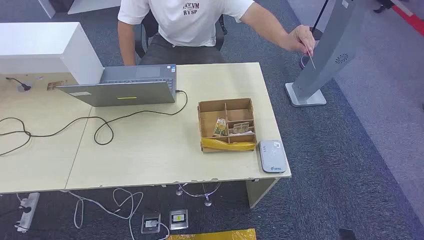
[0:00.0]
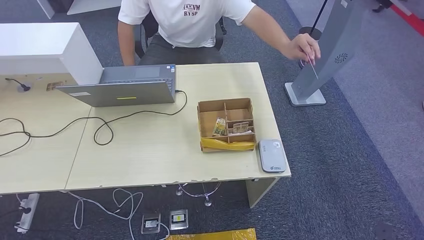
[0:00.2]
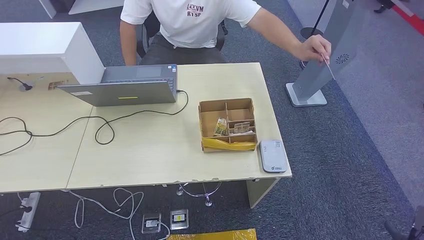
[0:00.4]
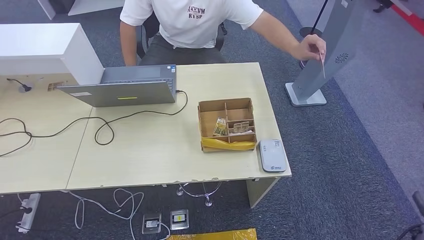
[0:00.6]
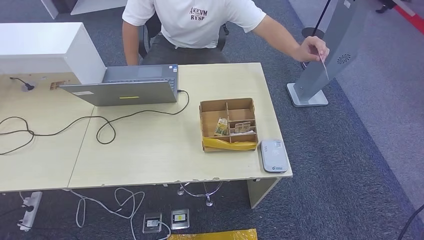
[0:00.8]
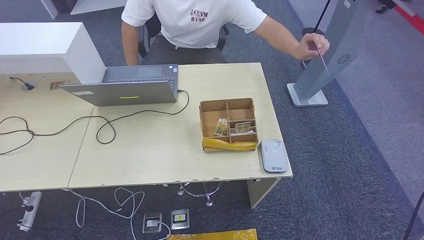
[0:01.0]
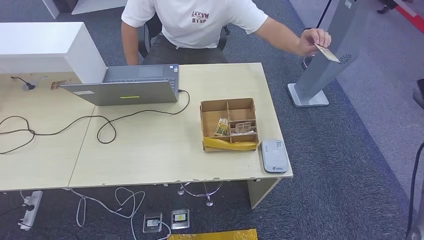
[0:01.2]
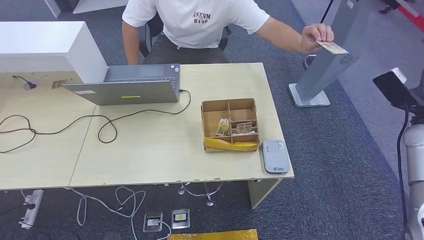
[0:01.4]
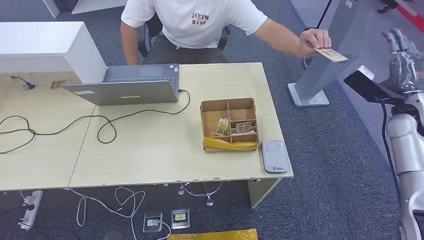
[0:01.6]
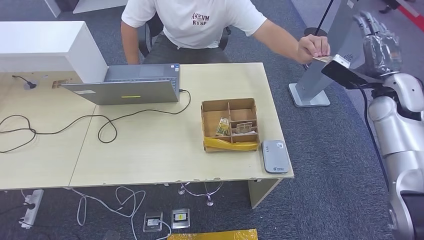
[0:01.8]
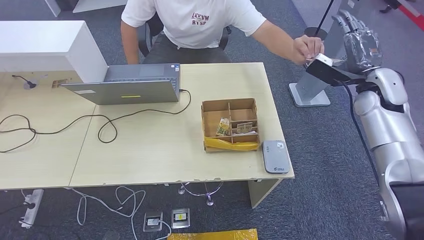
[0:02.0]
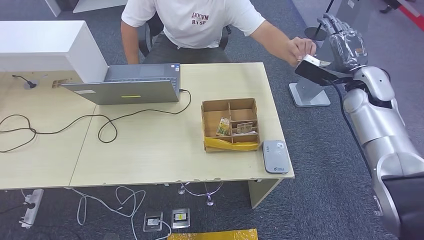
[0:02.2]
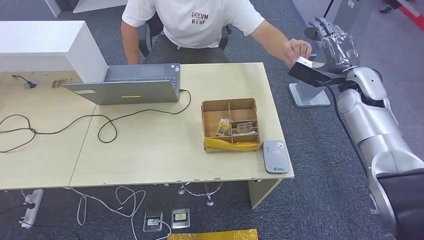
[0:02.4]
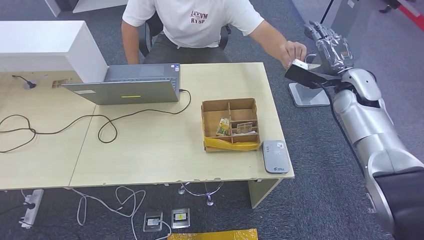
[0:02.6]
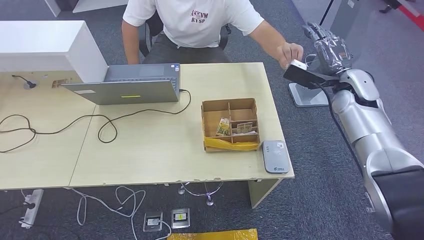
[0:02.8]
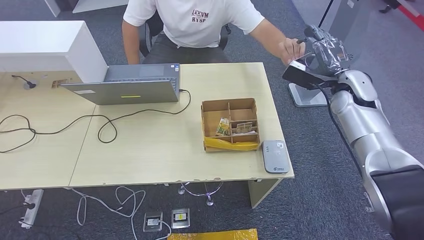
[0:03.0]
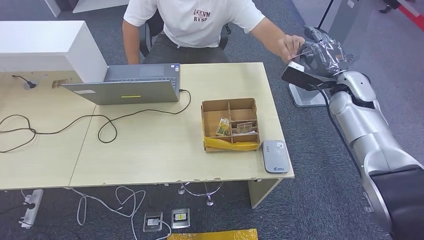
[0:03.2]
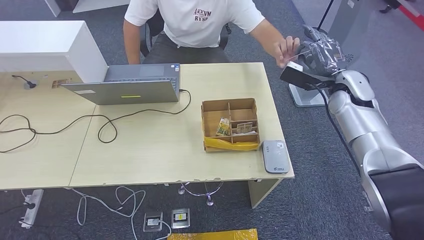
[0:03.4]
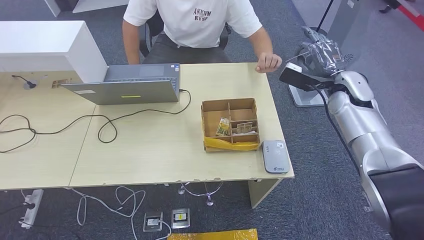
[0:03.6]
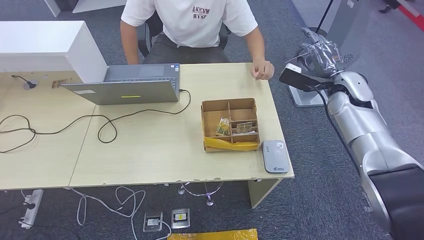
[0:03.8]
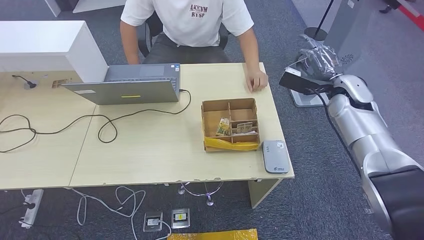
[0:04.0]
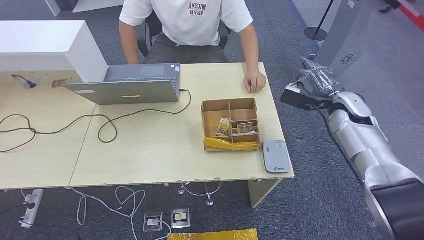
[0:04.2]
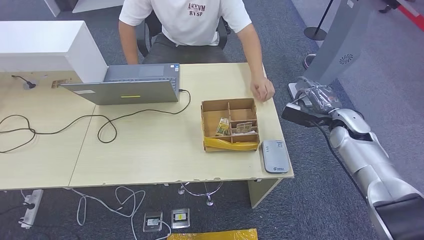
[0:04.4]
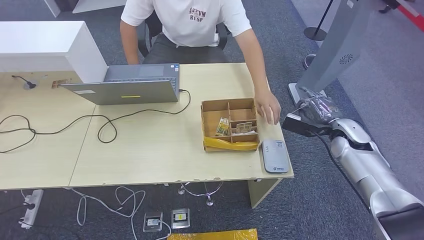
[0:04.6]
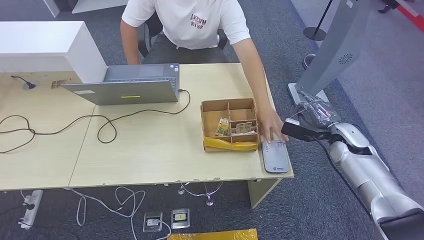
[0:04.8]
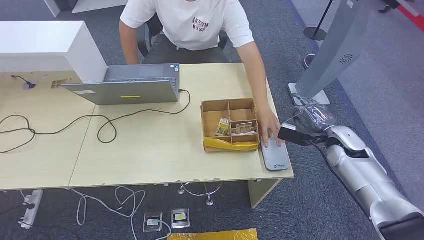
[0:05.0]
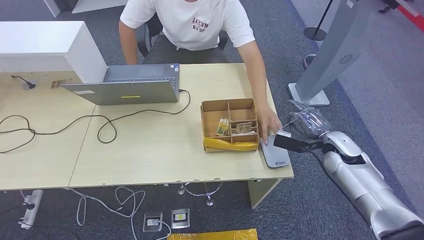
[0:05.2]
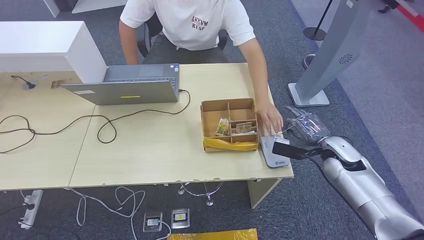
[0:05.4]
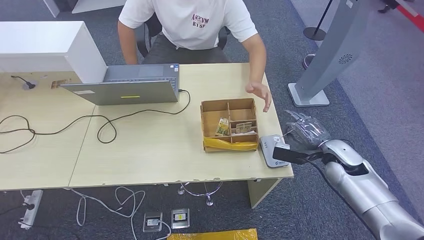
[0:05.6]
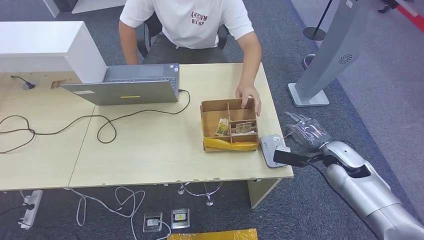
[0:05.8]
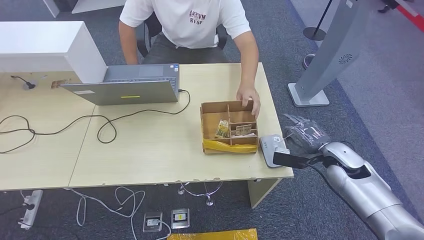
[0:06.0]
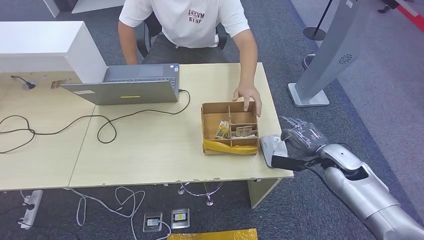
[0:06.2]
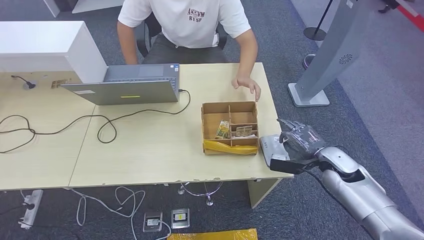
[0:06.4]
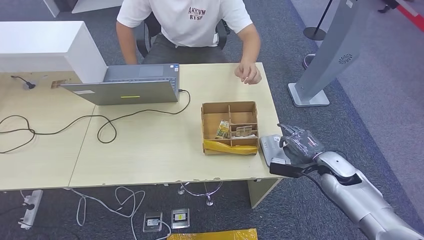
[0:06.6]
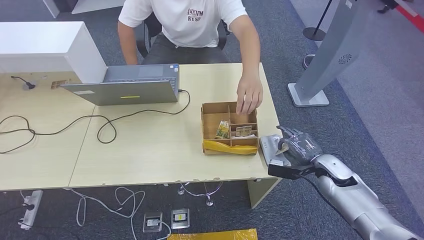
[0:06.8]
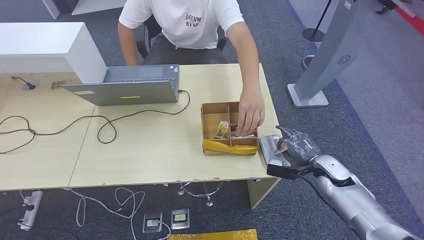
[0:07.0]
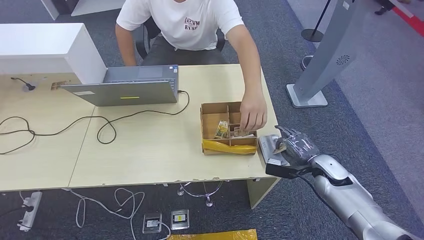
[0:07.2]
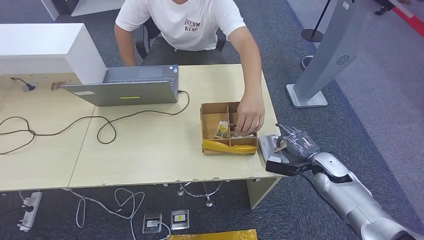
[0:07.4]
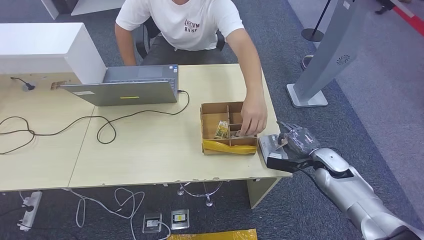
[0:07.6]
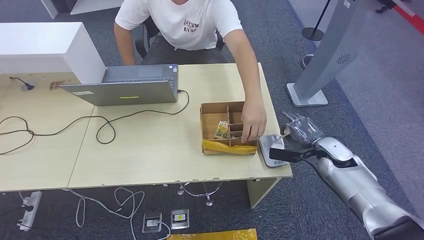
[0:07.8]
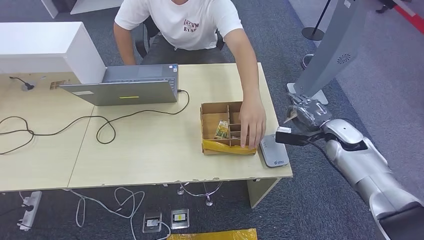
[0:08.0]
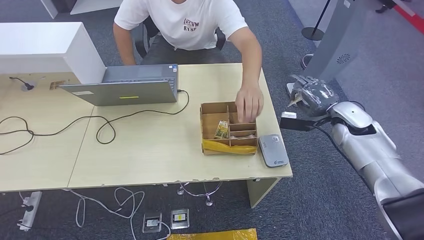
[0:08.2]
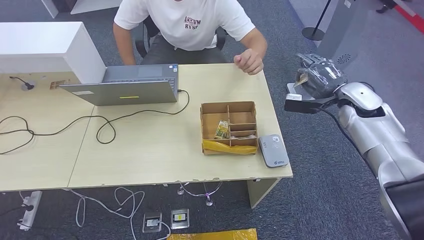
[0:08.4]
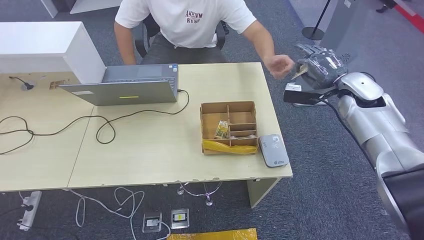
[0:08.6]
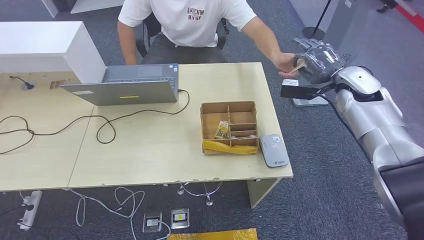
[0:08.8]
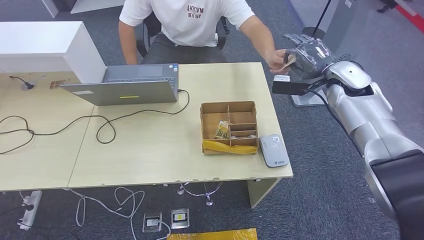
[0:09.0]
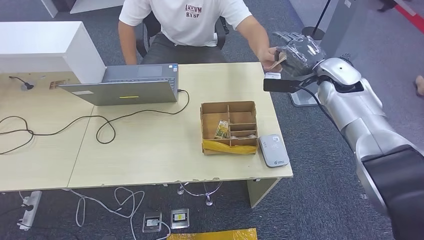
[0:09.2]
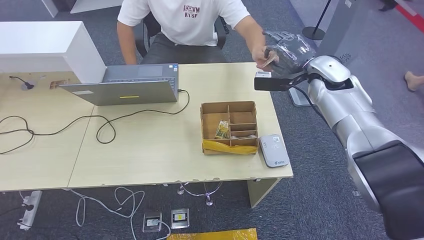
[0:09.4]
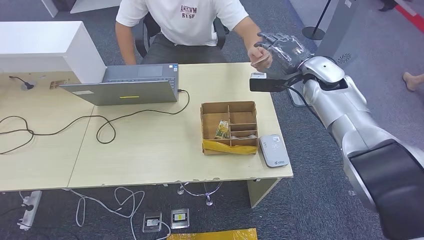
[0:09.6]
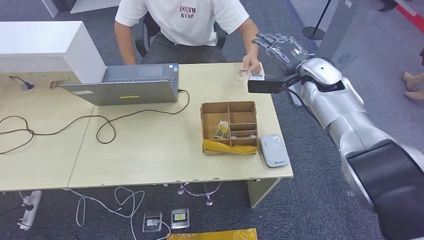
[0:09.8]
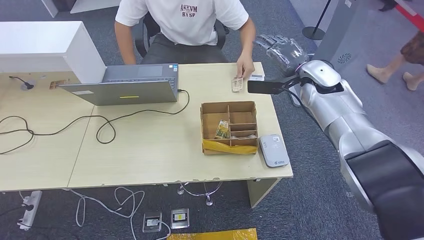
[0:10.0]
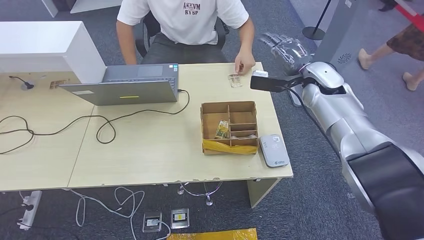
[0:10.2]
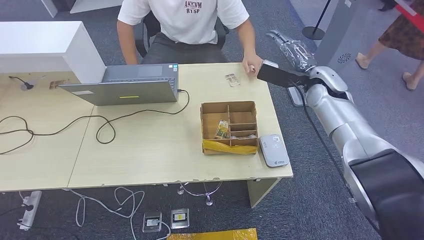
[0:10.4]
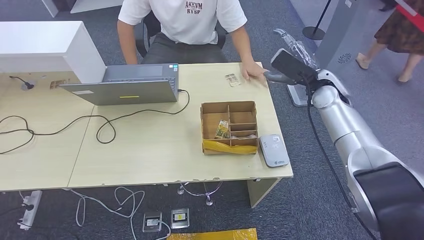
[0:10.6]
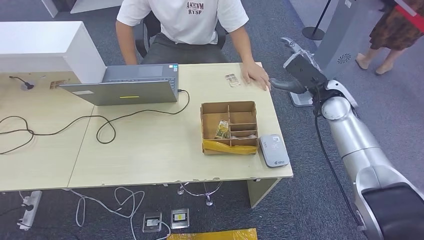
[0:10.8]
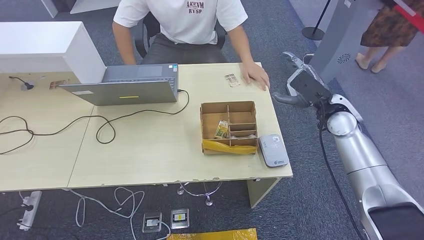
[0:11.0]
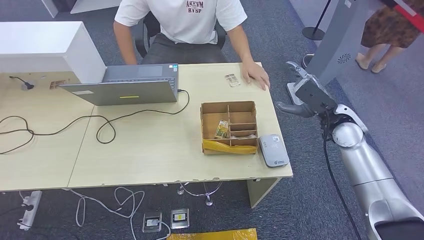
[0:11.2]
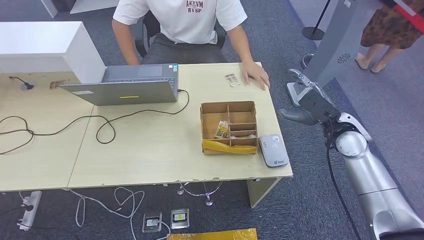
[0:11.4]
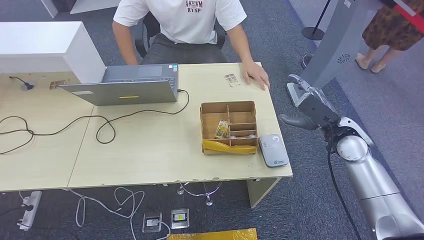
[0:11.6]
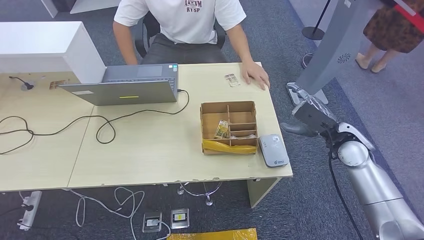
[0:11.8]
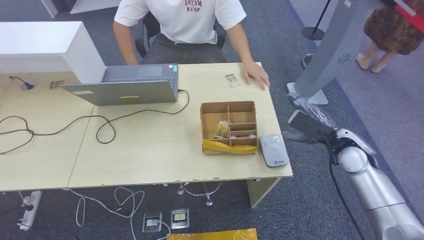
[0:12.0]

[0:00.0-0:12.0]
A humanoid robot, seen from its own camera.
Step, 0:00.0 to 0:04.0: Take the ID card from the person's hand.
Step, 0:04.2 to 0:07.2: Place the ID card on the card reader.
Step, 0:07.4 to 0:10.2: Hand the ID card to the person.
0:01.6 to 0:03.0: The right hand travels to the left and forward by roughly 15 cm.
0:03.0 to 0:04.4: The right hand heads downward, covering some 10 cm.
0:04.4 to 0:06.0: The right hand is displaced backward and downward by roughly 10 cm.
0:06.0 to 0:07.6: The right hand moves roughly 5 cm.
0:09.0 to 0:10.4: The right hand goes about 5 cm to the left.
0:10.4 to 0:12.0: The right hand shifts roughly 15 cm backward and downward.

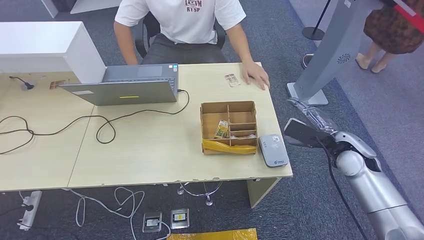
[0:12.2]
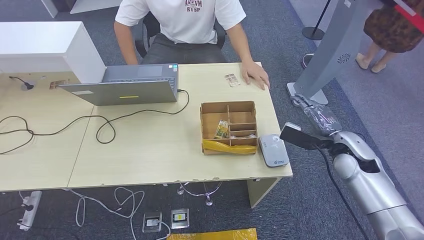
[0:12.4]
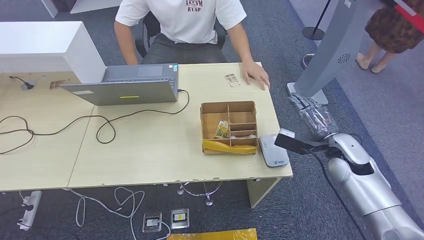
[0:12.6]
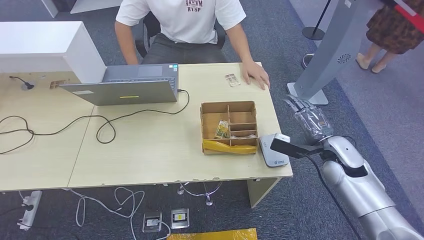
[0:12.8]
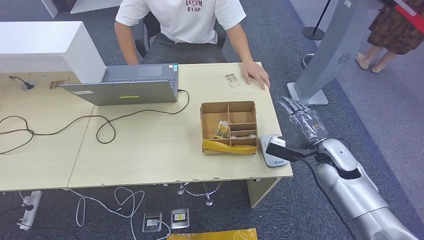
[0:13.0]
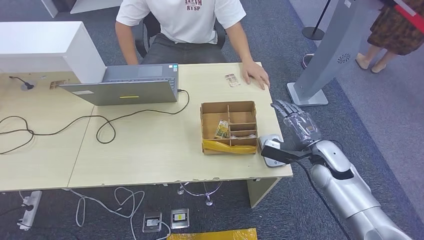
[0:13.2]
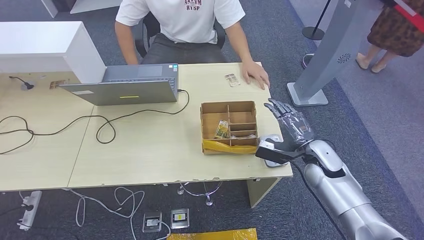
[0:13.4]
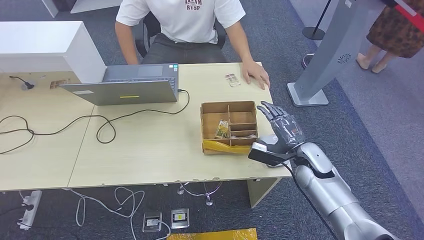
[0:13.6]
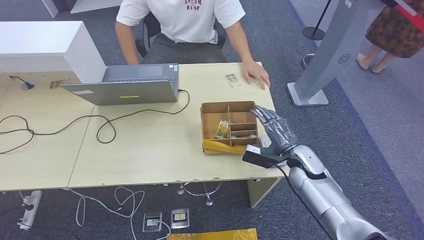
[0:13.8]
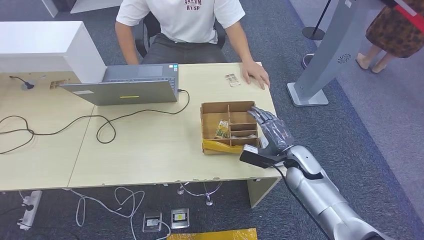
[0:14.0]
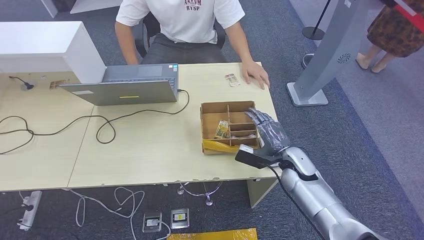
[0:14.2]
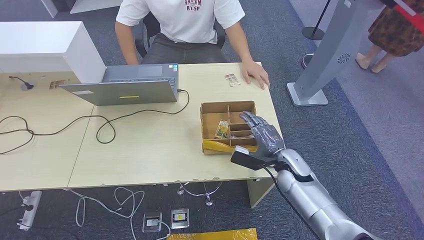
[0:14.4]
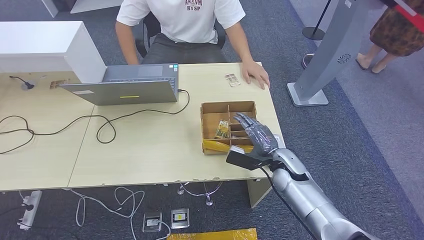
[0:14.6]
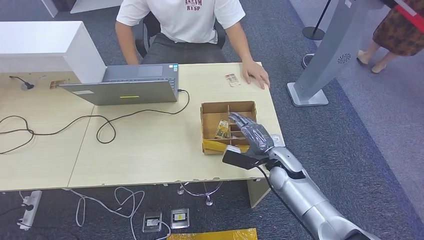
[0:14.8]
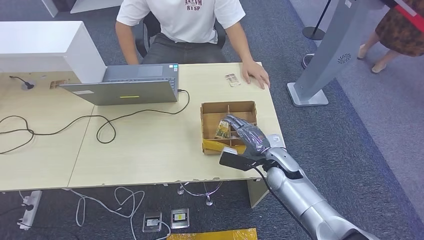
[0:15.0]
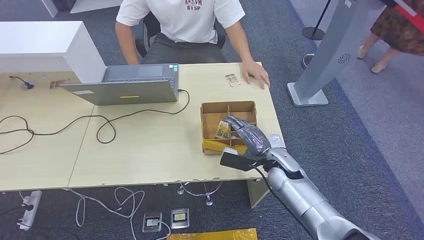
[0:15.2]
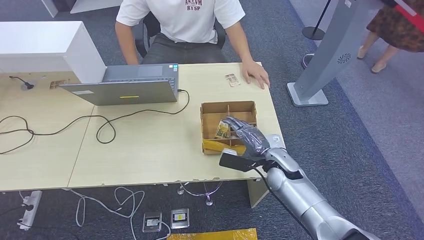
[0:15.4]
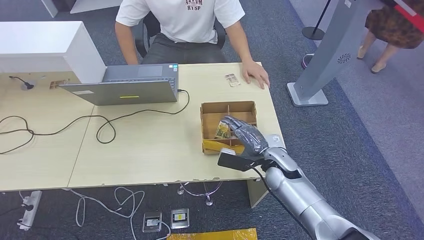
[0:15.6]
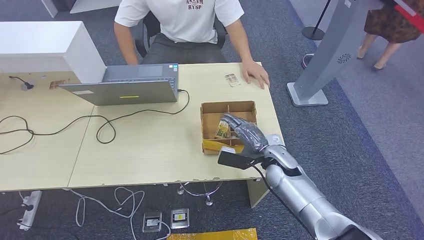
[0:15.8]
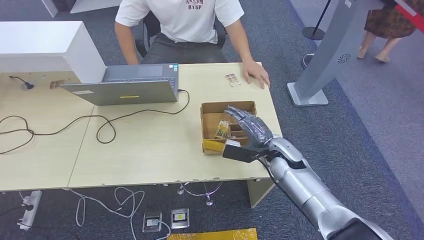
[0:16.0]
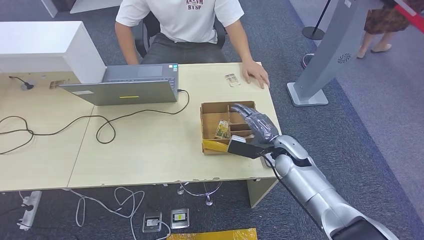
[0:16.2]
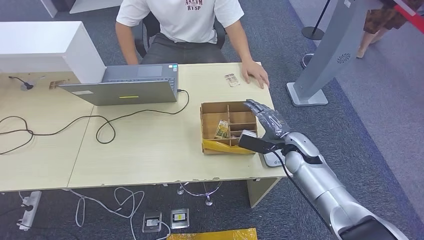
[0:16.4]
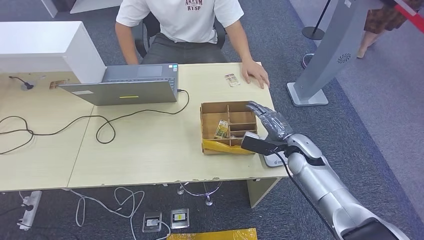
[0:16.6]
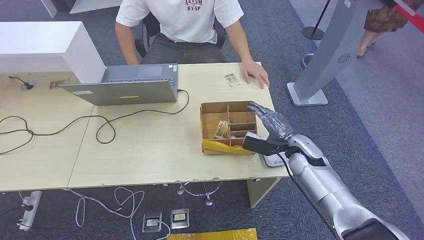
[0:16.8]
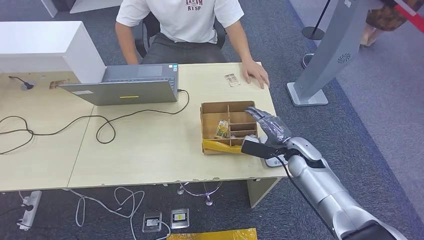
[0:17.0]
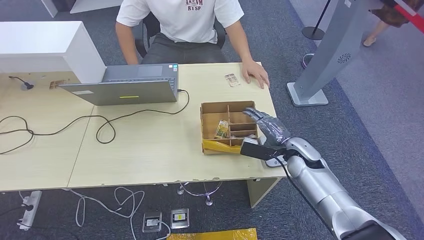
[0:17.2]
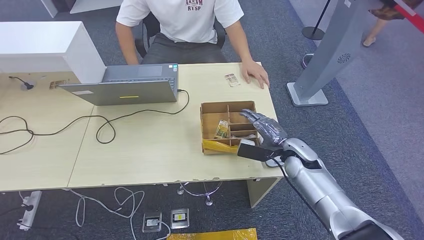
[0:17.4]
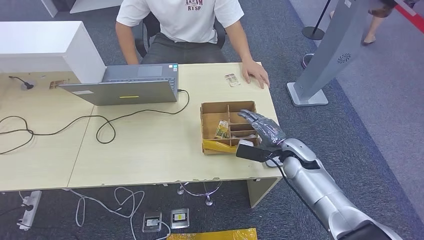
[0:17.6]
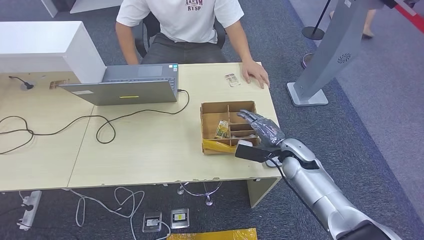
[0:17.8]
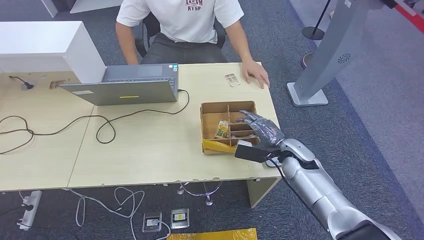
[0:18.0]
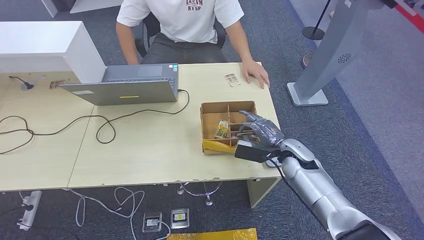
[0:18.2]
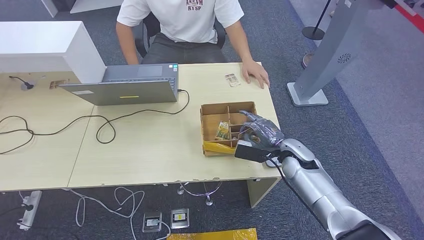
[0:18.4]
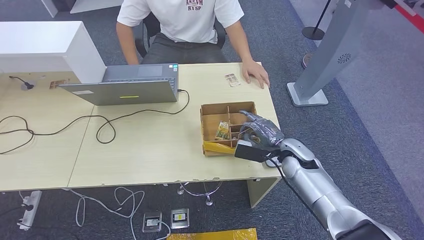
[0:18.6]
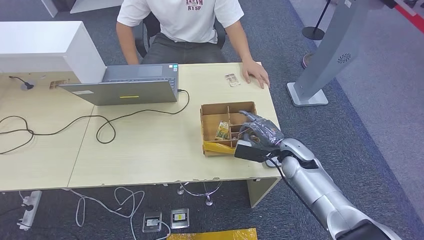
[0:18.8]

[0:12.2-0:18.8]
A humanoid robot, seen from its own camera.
0:12.2 to 0:13.8: The right hand shifts approximately 10 cm to the left and downward.
0:13.8 to 0:15.4: The right hand is displaced to the left by approximately 5 cm.
0:15.4 to 0:17.2: The right hand moves to the right, roughly 5 cm.
0:17.2 to 0:18.8: The hands stay close to where they were, moving slightly.
